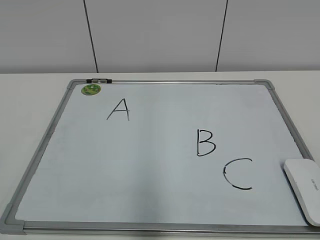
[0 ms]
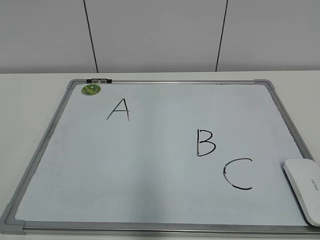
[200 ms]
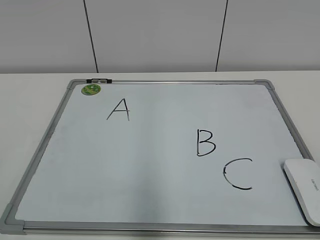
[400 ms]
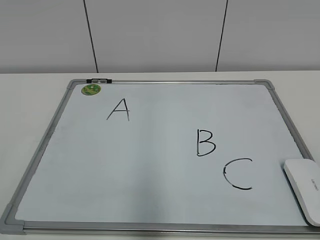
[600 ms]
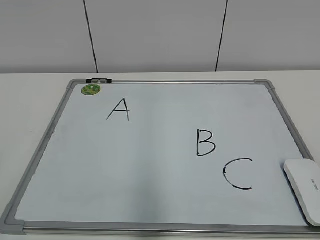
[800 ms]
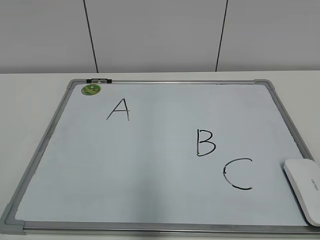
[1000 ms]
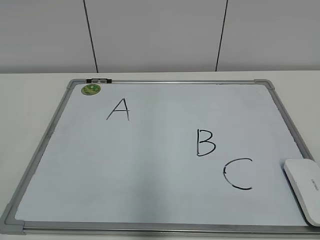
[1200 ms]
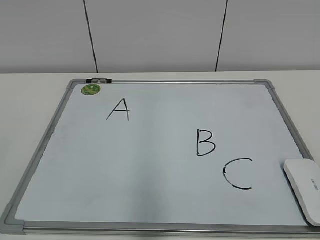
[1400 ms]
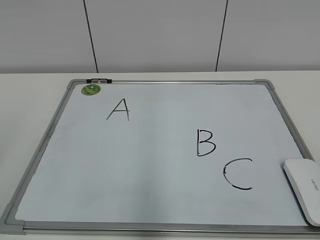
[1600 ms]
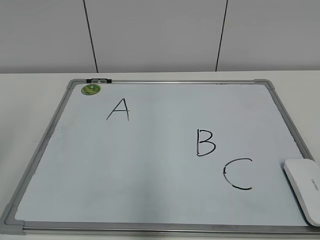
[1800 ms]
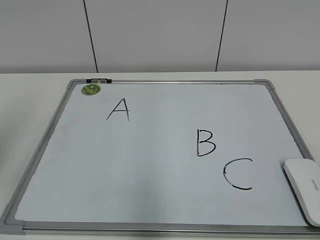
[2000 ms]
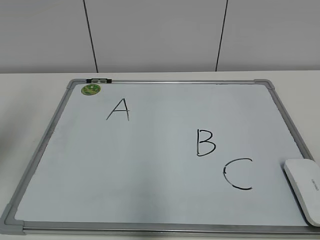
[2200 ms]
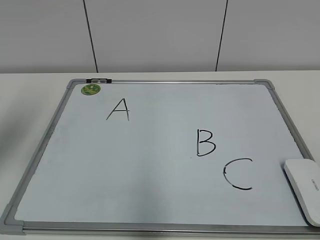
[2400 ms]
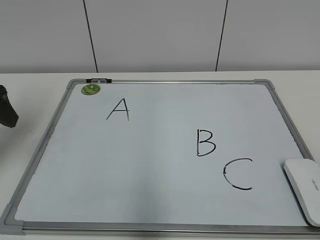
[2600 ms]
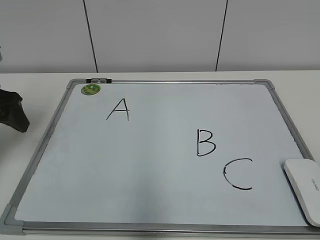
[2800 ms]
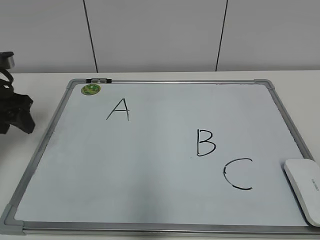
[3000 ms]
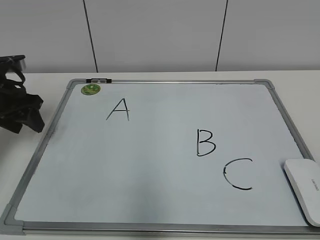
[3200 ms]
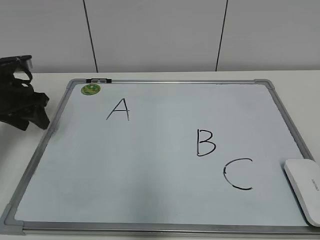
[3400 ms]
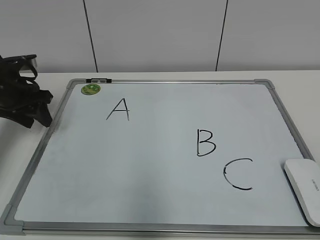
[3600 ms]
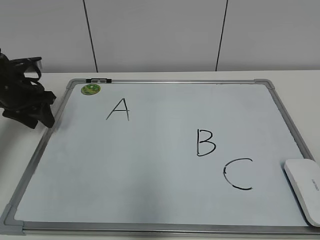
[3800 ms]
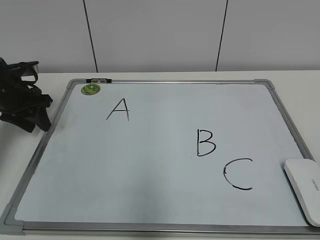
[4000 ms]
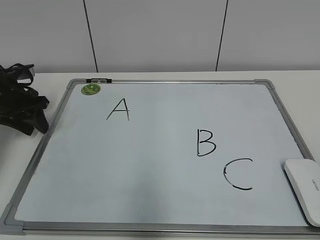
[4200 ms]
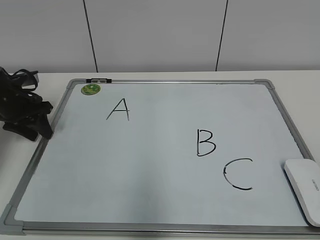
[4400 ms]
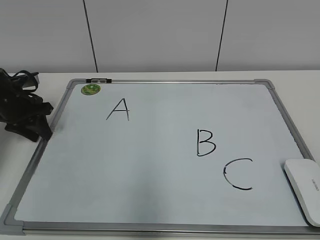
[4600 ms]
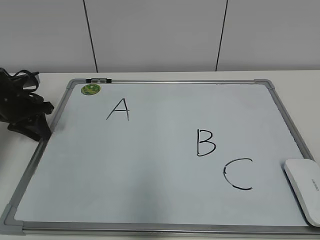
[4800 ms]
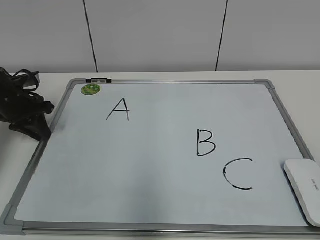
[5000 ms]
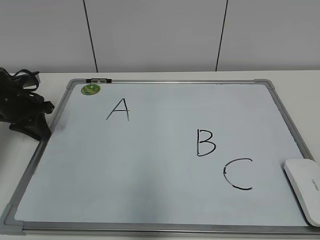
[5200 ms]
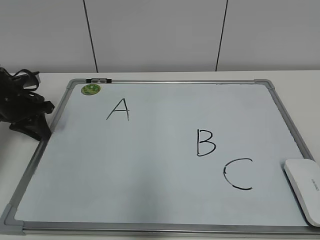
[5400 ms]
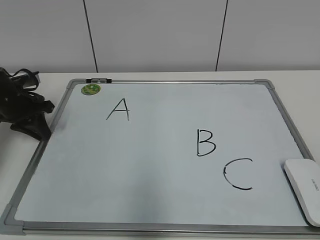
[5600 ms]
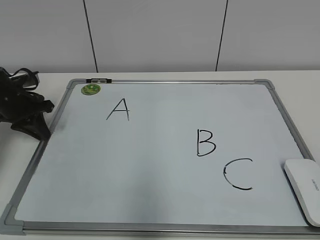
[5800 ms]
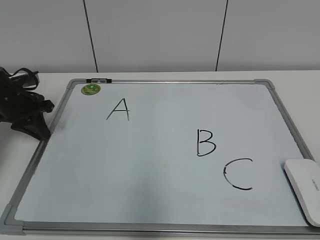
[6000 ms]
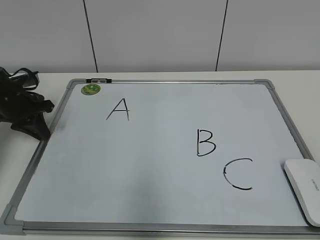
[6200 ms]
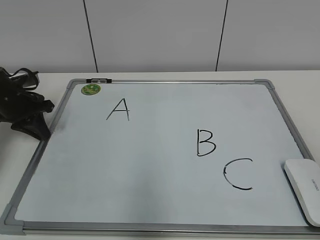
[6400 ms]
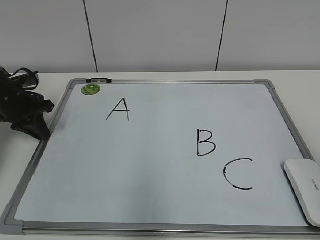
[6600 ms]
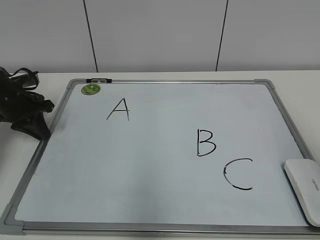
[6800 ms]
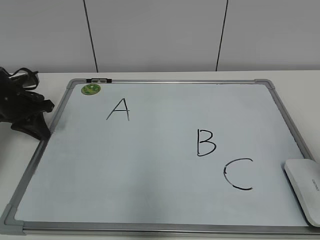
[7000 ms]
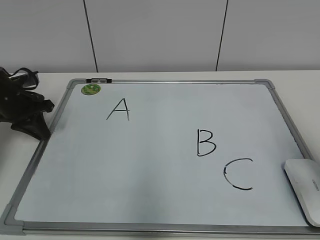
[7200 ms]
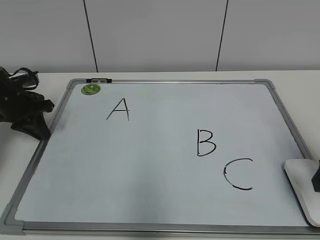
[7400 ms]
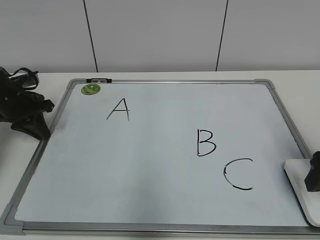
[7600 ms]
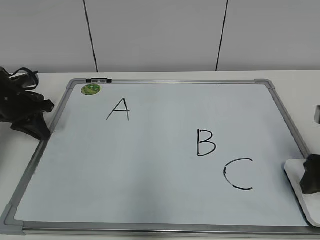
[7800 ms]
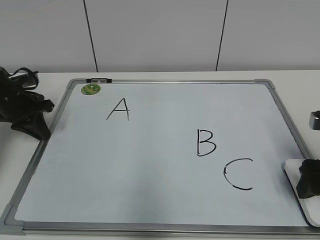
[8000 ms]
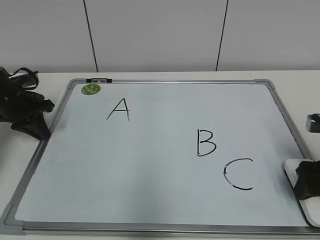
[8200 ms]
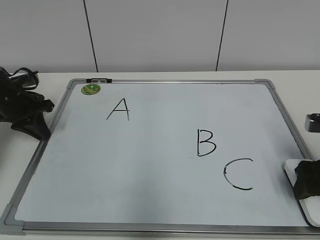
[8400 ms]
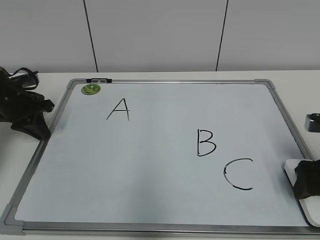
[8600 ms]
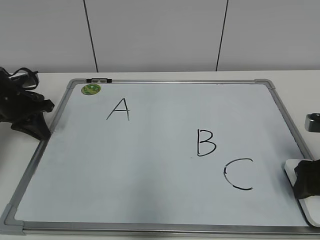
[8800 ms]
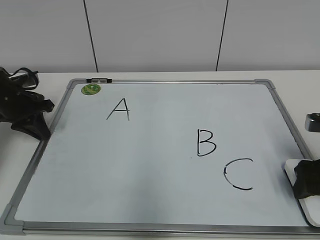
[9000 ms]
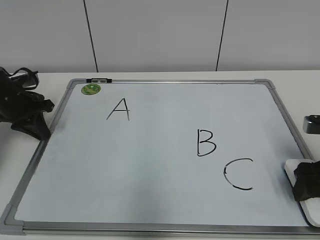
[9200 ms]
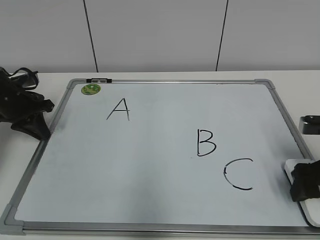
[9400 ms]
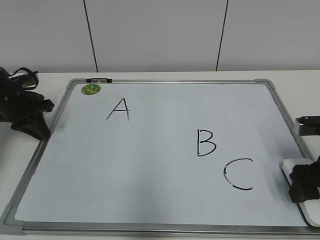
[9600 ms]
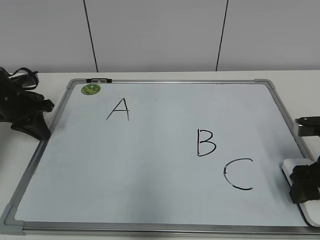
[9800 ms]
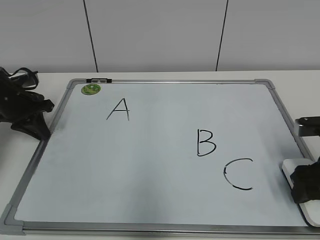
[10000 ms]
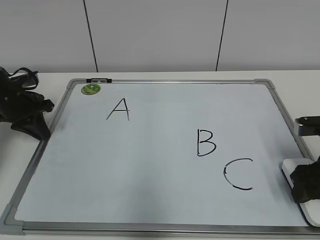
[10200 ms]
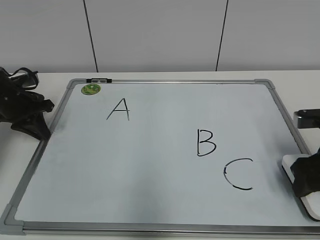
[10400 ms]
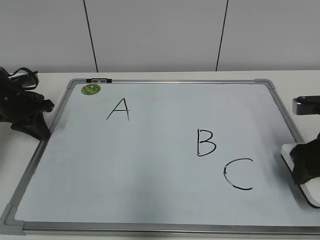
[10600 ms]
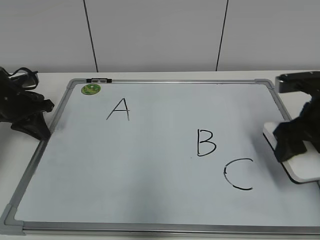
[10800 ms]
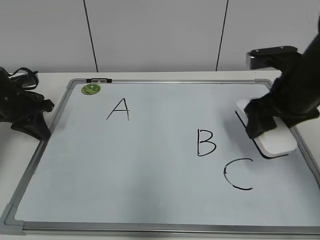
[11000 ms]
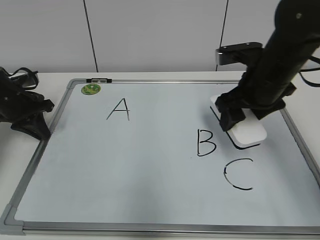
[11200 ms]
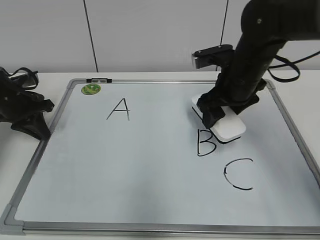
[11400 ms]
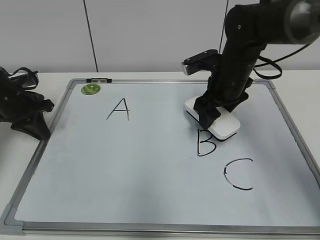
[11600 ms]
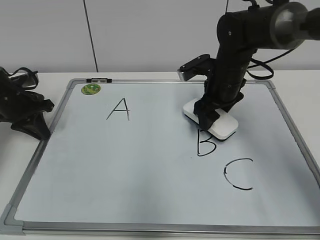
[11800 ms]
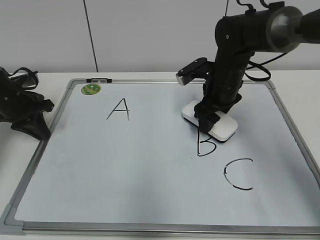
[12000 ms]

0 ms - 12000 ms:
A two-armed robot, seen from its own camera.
Task of the whole recording: pick up the eraser on the blackboard and erase the letter "B".
Step, 0 ms - 5600 ms: Hold the drawing board steady with your left hand.
1600 ms - 3000 ms: The left gripper shifts some 30 cm forward and downward.
3000 ms - 4400 ms: The left gripper is displaced downward and forward by approximately 10 cm.
4400 ms - 6000 ms: The left gripper closes.
6000 ms - 7600 ms: The right gripper travels forward by about 25 cm, and opens.
7600 ms - 9000 ms: The grippers move only a little.
9000 ms - 10400 ms: The right gripper closes its fingers.
10400 ms - 12000 ms: The right gripper goes approximately 20 cm forward and to the left.

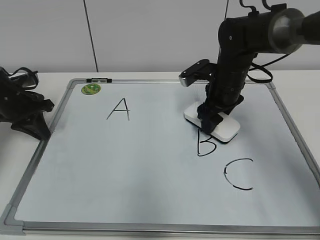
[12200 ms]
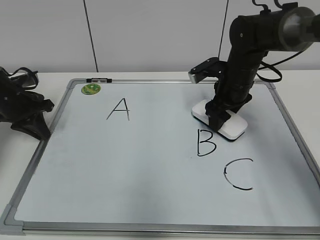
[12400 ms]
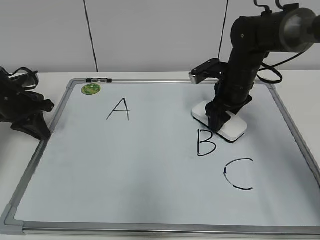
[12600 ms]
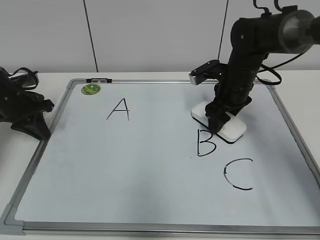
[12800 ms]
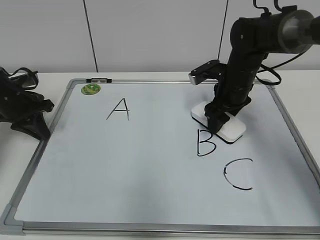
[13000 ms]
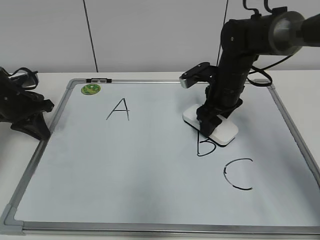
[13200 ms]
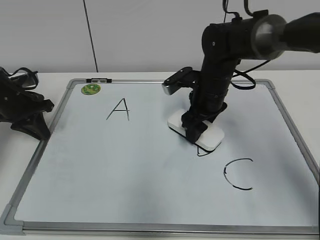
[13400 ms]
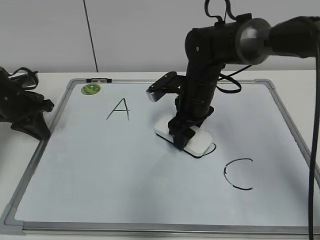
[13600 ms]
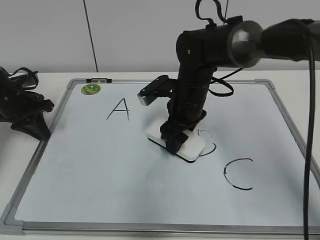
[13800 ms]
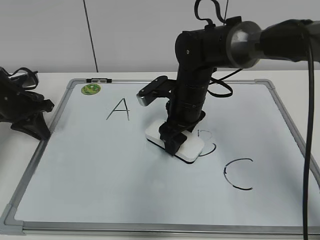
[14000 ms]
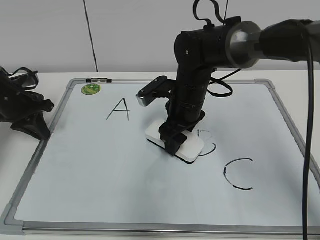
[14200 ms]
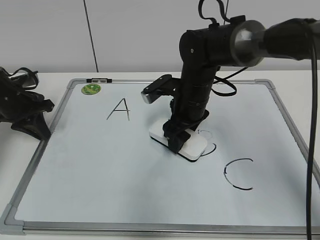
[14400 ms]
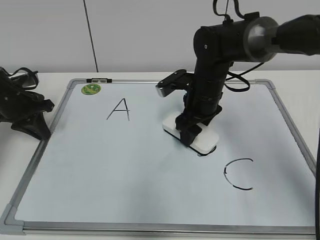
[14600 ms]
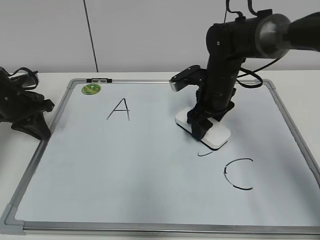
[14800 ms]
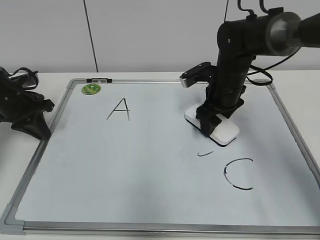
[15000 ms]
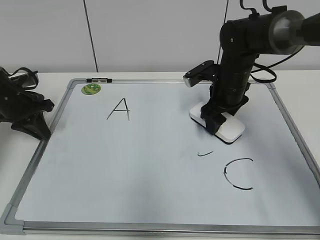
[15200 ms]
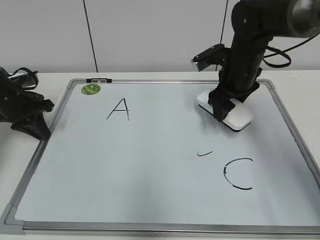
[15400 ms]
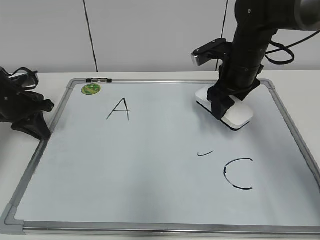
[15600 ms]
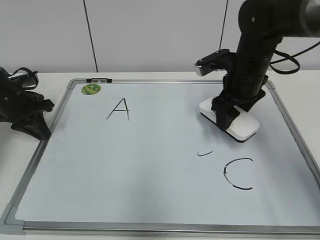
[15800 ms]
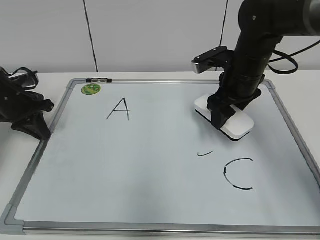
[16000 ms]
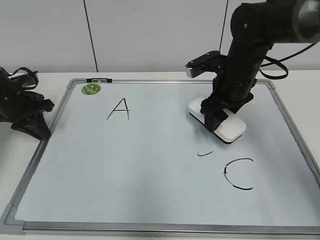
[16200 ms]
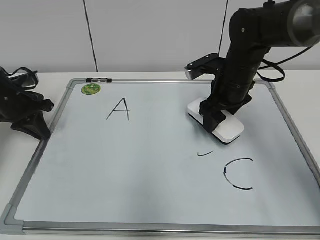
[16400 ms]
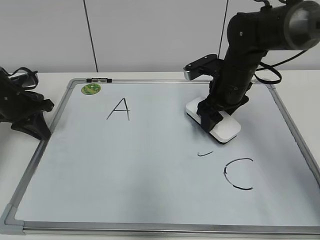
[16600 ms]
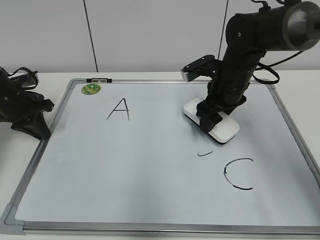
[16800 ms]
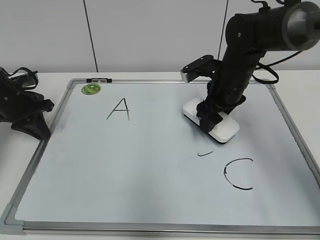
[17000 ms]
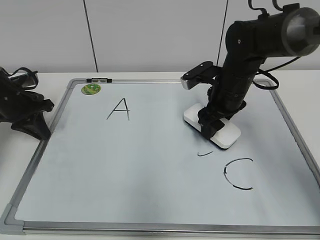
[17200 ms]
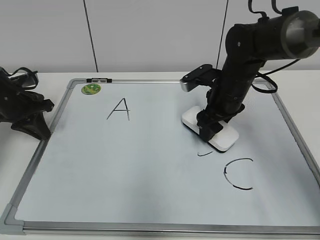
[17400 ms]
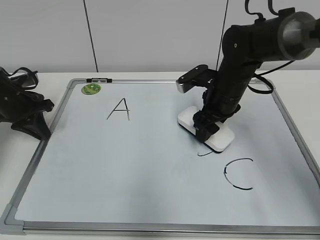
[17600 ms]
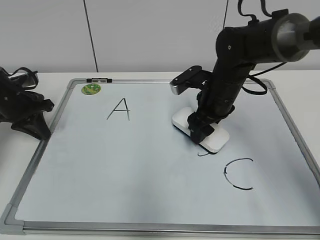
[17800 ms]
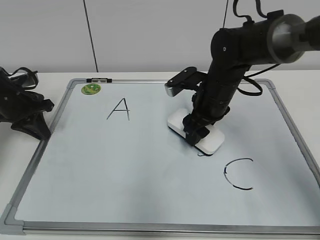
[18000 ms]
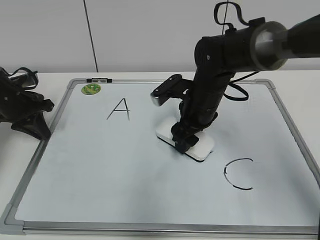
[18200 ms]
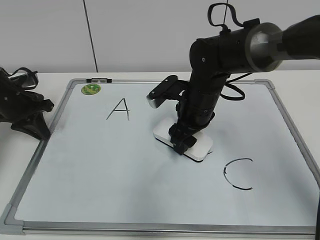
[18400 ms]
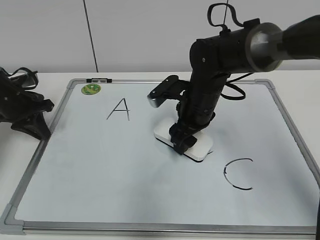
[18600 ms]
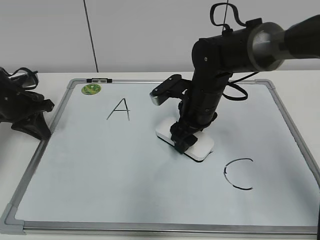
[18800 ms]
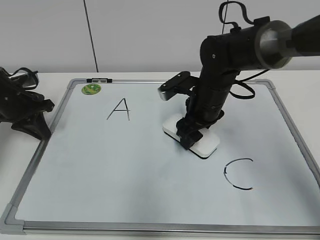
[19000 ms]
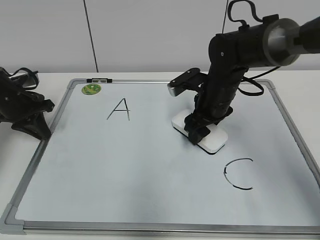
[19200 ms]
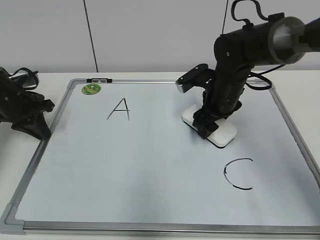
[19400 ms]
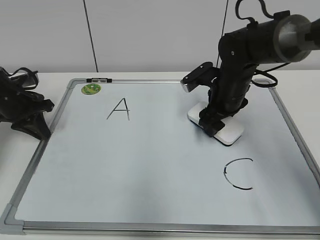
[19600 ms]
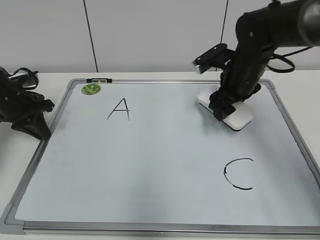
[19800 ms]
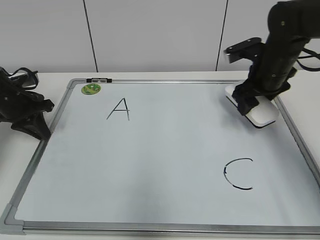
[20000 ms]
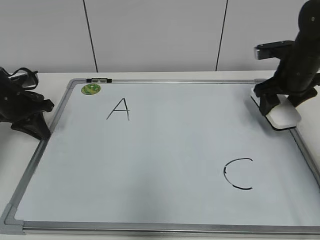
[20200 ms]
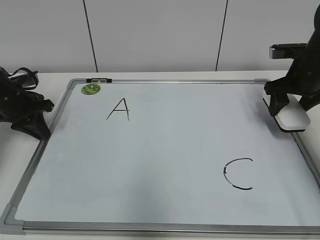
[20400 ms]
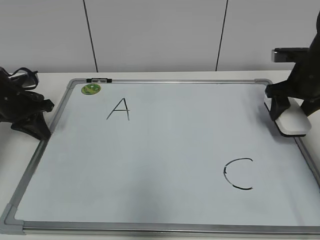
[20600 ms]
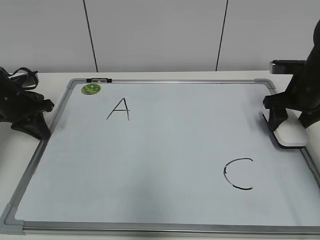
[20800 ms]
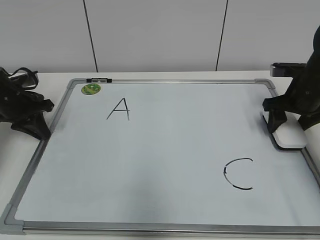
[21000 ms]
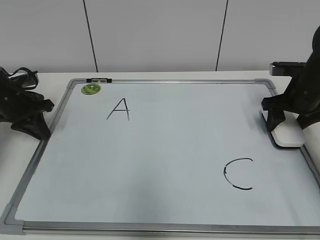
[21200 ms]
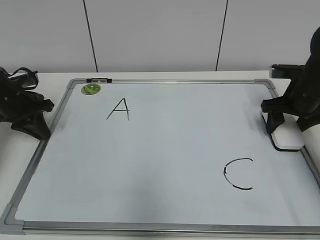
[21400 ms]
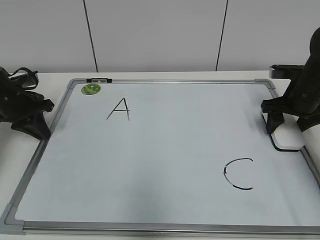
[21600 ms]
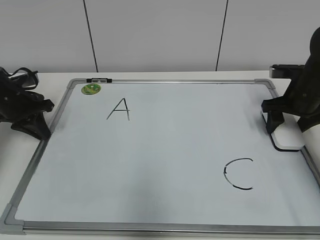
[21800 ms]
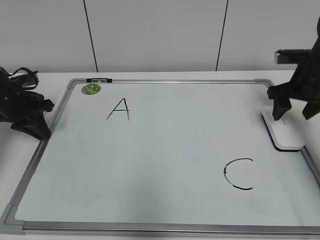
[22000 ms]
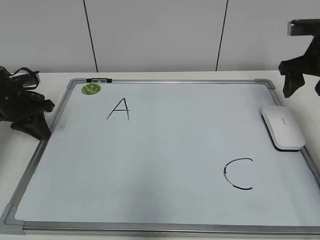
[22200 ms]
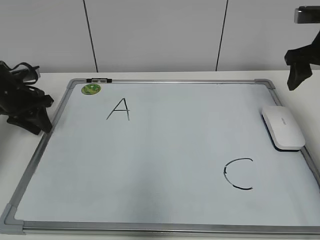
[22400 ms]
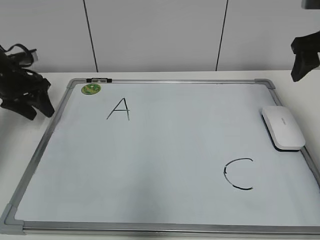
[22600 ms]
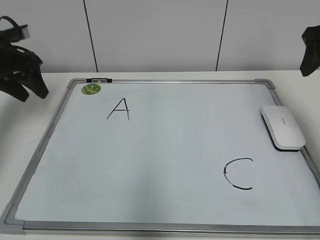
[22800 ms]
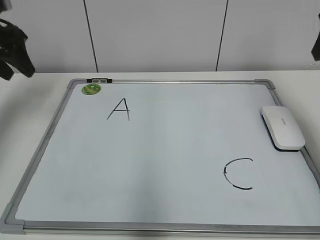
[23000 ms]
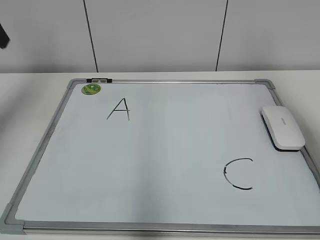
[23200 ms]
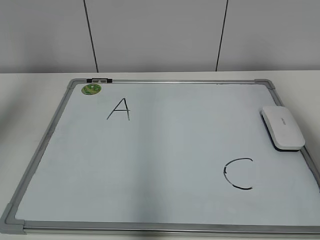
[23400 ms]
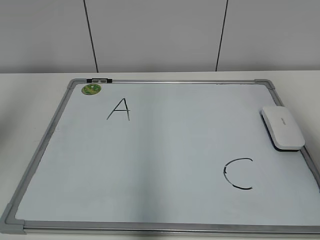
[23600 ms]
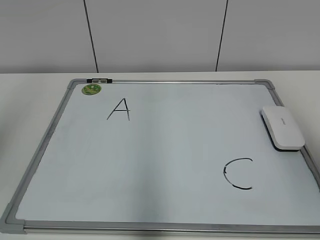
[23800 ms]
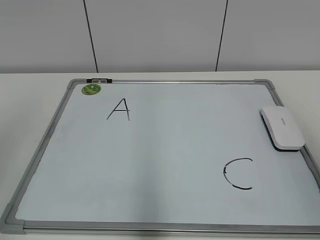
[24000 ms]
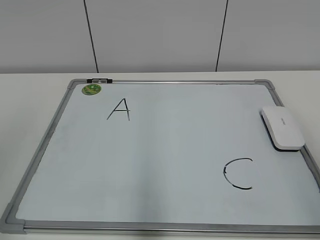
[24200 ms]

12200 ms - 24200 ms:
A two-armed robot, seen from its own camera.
Task of the whole recording: pick up the eraser on the blackboard and erase the letter "B".
Step, 12200 ms - 19200 ms: Erase the letter B with your right hand.
Step, 19400 ms - 21800 ms: Put down the eraser with your right hand.
12200 ms - 13800 ms: The right gripper shifts approximately 10 cm to the left.
13800 ms - 15200 ms: The right gripper travels to the right by approximately 10 cm.
15200 ms - 16600 ms: The grippers make only small movements.
16600 ms - 18200 ms: The right gripper is displaced to the left by about 5 cm.
18200 ms - 19800 ms: The right gripper shifts approximately 10 cm to the right.
19800 ms - 21200 ms: The right gripper travels to the right by some 15 cm.
21200 ms - 22600 ms: The left gripper opens its fingers. The right gripper moves upward, roughly 15 cm, and opens.
22600 ms - 24200 ms: The left gripper goes about 40 cm backward and upward; the right gripper moves backward, about 30 cm.
